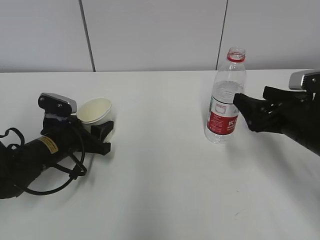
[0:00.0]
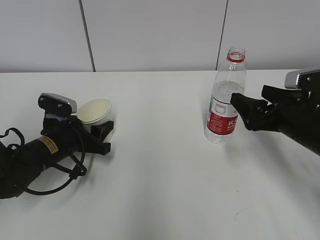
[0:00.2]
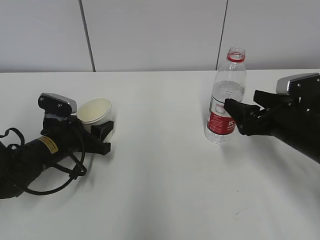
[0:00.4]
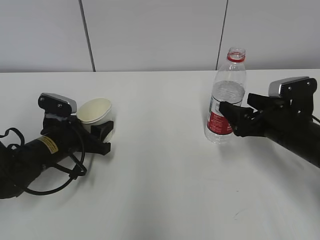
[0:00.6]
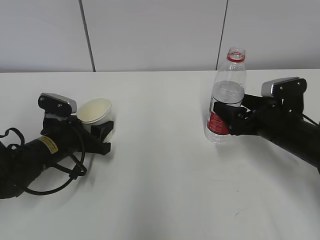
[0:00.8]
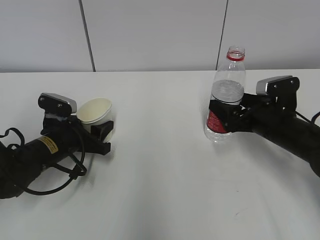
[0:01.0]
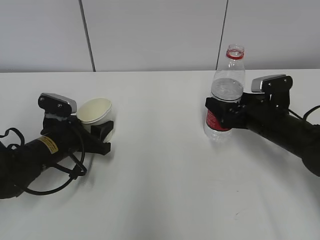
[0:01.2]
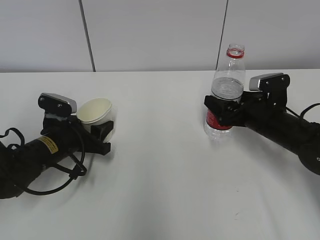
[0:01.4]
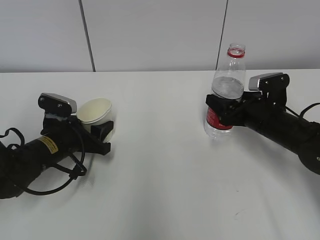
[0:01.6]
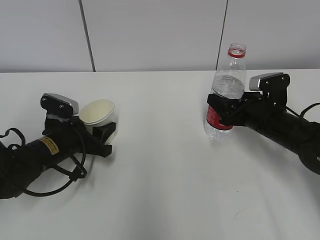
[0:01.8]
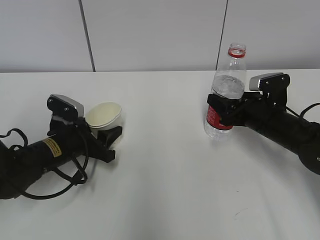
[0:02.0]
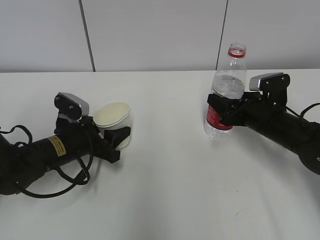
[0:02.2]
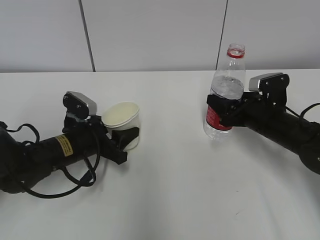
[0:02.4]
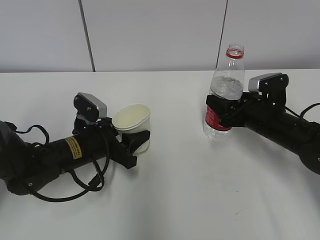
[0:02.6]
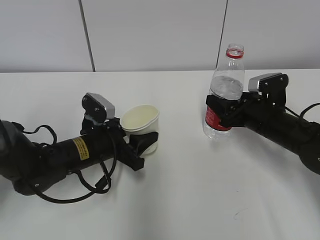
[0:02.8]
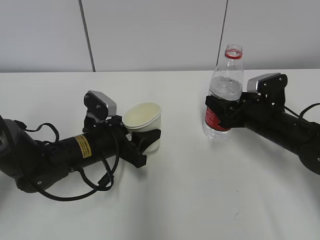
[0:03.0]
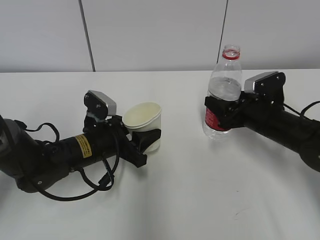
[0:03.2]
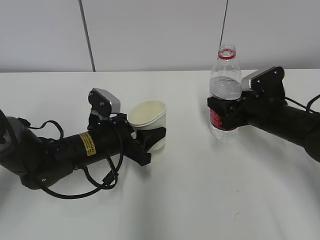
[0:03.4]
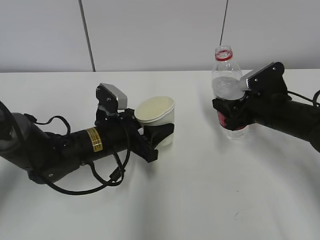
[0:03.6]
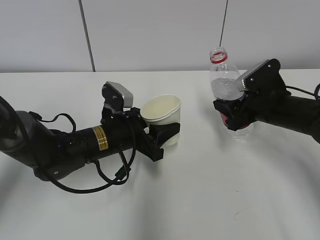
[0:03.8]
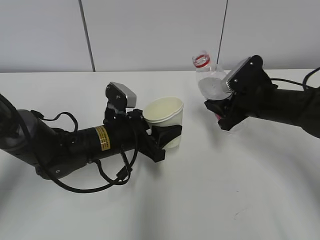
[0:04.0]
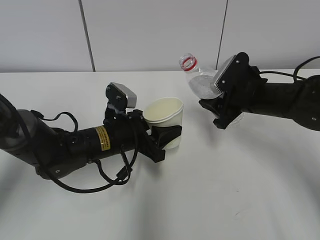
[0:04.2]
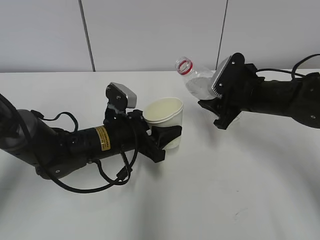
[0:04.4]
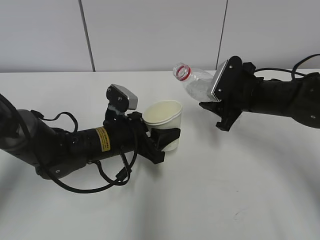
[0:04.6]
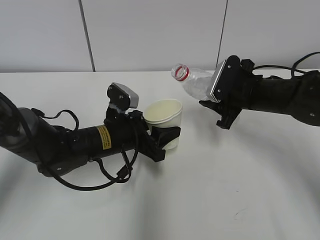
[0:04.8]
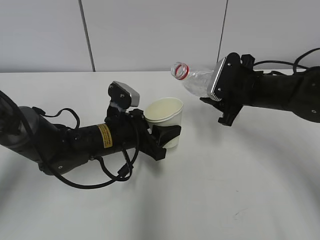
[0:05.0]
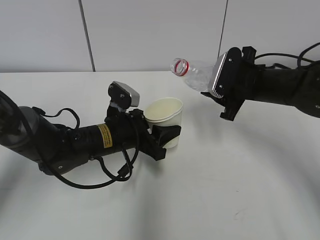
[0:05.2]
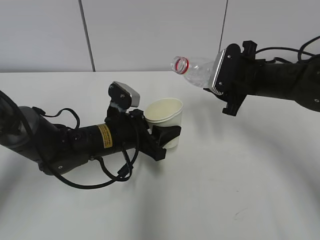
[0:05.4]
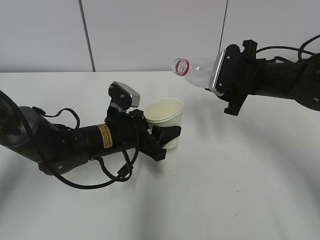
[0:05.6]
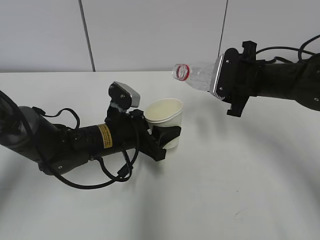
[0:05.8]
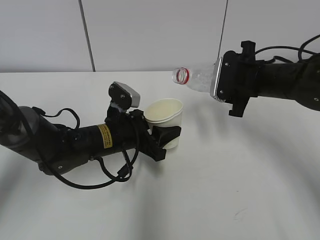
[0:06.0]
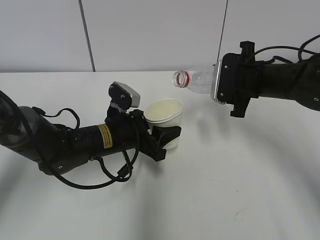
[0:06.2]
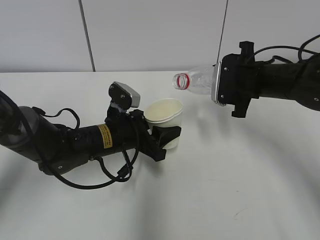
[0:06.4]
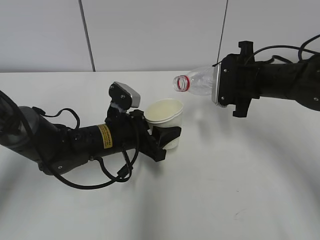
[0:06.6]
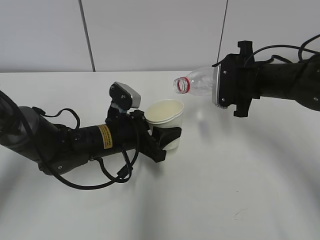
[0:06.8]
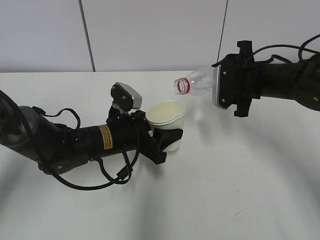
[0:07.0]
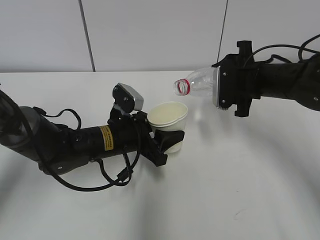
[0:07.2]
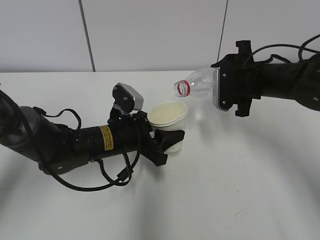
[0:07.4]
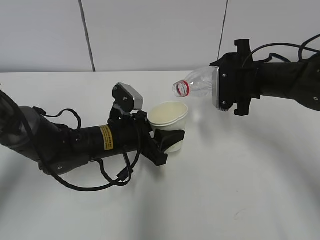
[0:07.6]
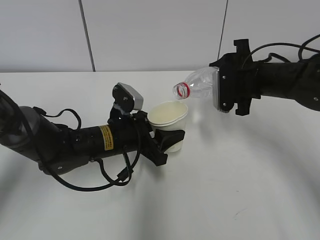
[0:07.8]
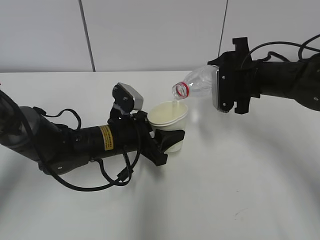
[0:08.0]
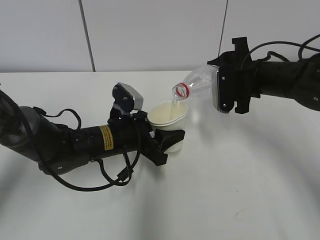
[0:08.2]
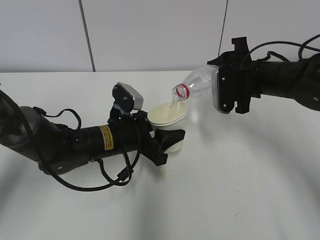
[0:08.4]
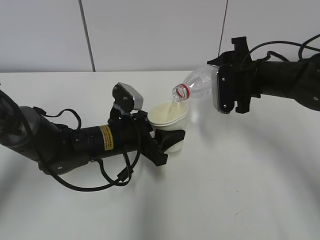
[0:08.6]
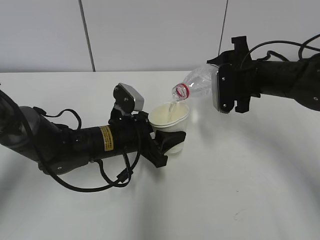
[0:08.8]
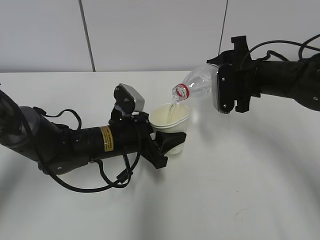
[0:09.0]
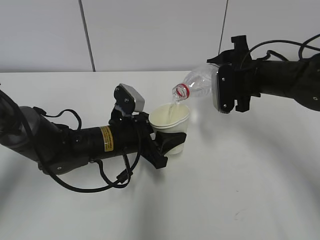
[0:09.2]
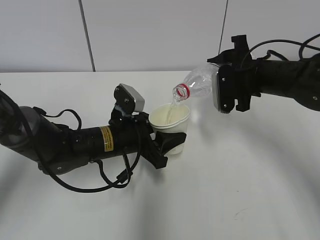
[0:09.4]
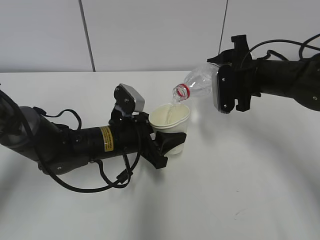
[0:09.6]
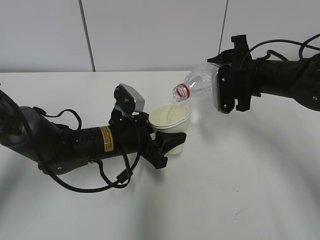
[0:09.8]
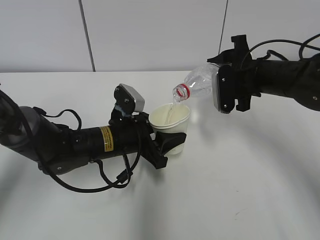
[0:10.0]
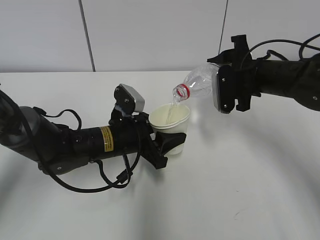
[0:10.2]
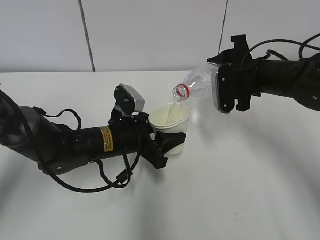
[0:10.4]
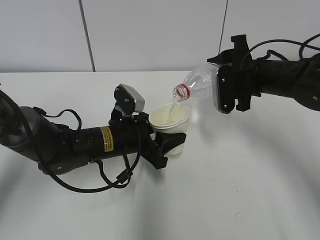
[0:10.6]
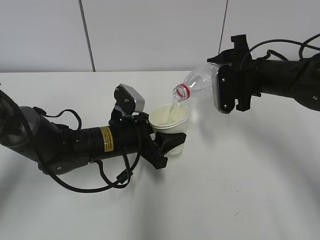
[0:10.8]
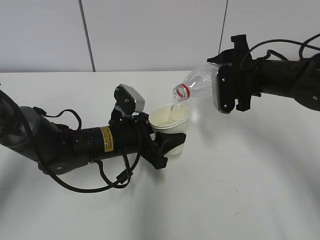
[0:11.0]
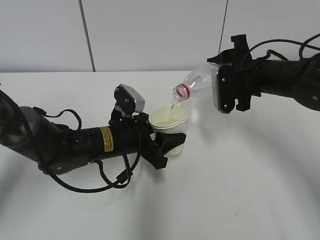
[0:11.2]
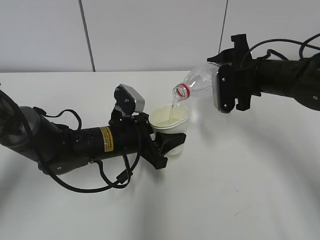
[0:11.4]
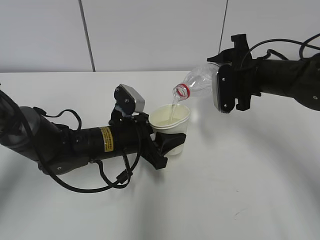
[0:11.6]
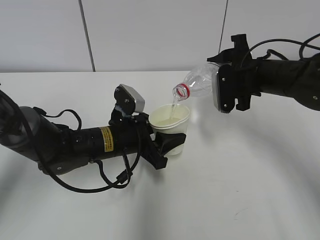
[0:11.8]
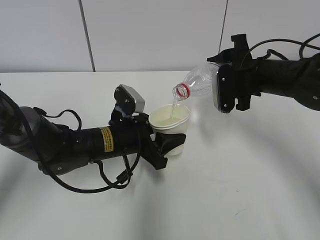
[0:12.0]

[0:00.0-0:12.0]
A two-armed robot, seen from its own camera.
Step, 0:00.2 to 0:01.0: Grab the water bottle with the right hand.
Step, 0:01.2 to 0:05.0: Lift the paper cup with the left hand.
Step, 0:05.2 to 0:09.0: Fill water with the left hand.
Step, 0:05.2 to 0:09.0: Pour water with the right hand.
0:00.0 to 0:01.6: The right gripper shifts some 10 cm forward and downward.
0:01.6 to 0:03.0: The left gripper moves to the right, approximately 5 cm, while the right gripper closes up.
0:03.0 to 0:04.4: The right gripper travels upward by some 5 cm.
0:06.0 to 0:07.6: The grippers move only a little.
0:07.6 to 0:09.0: The grippers stay close to where they were, moving slightly.
0:09.0 to 0:12.0: Neither gripper changes place.

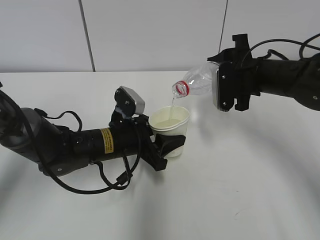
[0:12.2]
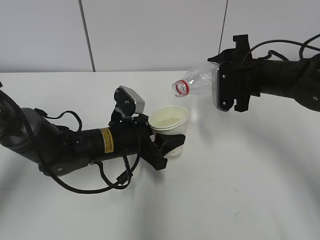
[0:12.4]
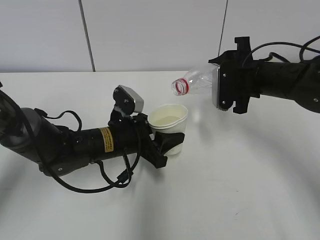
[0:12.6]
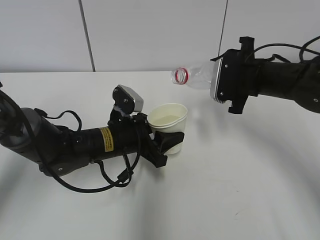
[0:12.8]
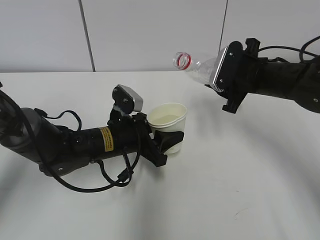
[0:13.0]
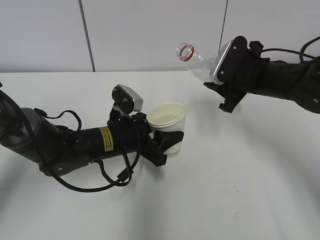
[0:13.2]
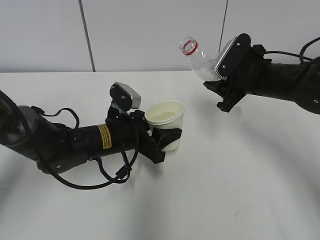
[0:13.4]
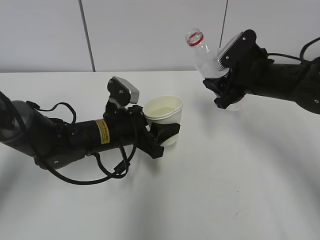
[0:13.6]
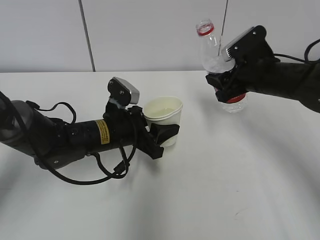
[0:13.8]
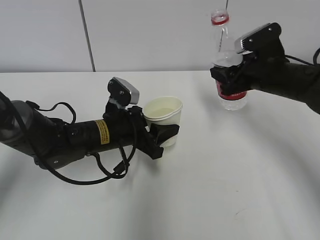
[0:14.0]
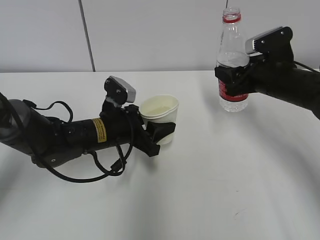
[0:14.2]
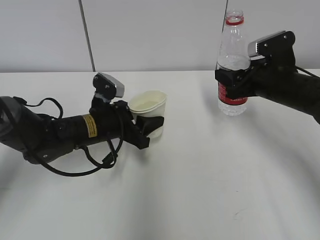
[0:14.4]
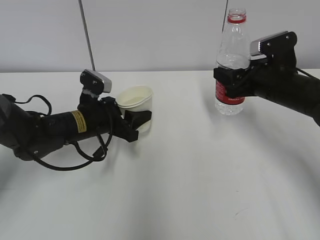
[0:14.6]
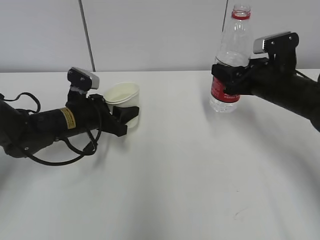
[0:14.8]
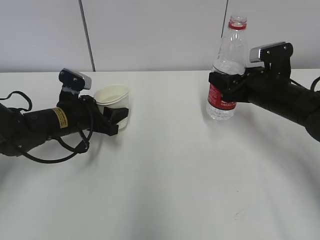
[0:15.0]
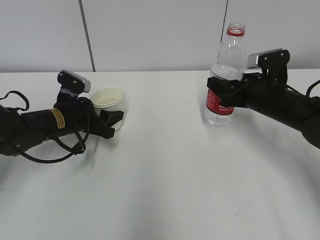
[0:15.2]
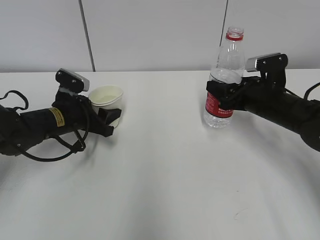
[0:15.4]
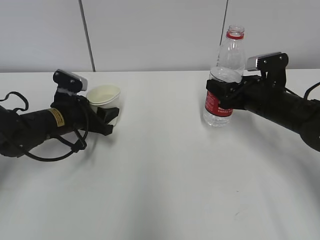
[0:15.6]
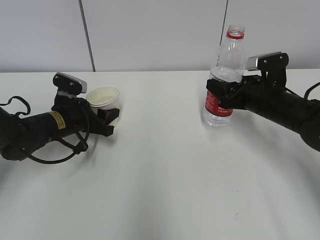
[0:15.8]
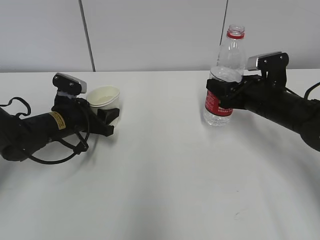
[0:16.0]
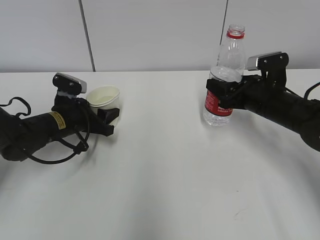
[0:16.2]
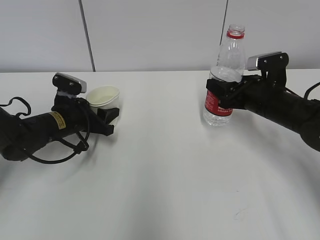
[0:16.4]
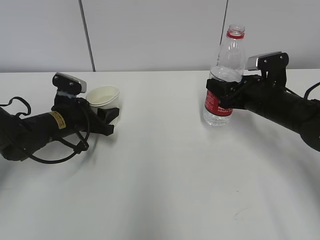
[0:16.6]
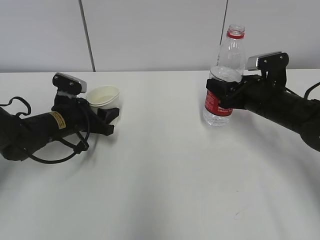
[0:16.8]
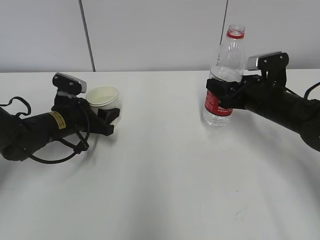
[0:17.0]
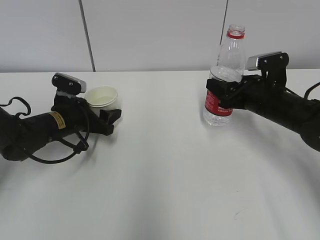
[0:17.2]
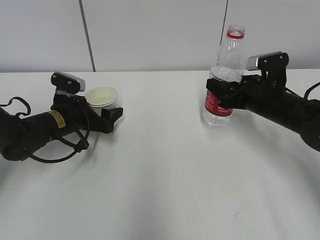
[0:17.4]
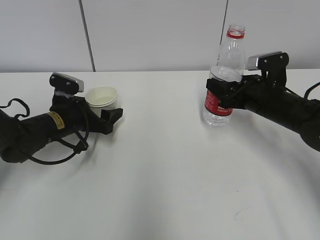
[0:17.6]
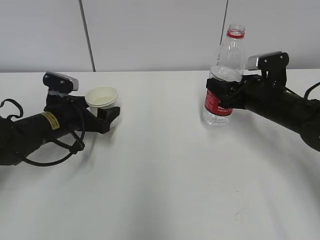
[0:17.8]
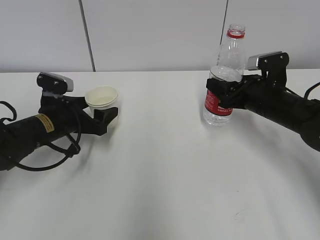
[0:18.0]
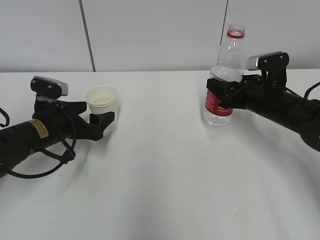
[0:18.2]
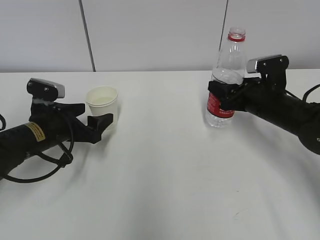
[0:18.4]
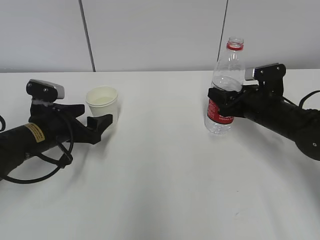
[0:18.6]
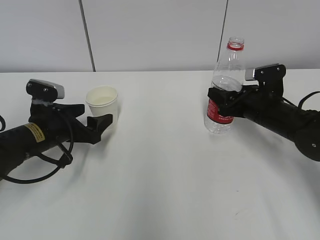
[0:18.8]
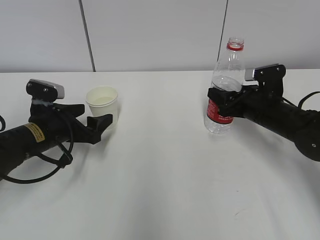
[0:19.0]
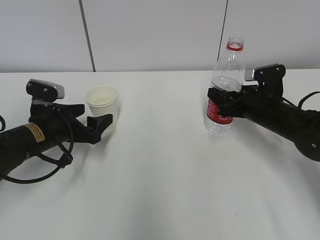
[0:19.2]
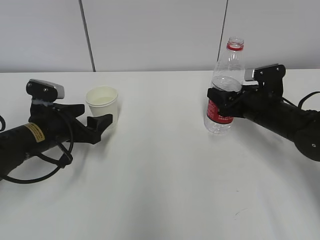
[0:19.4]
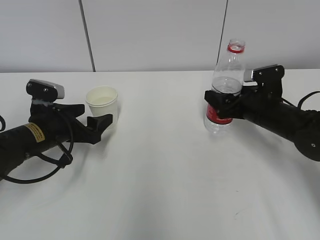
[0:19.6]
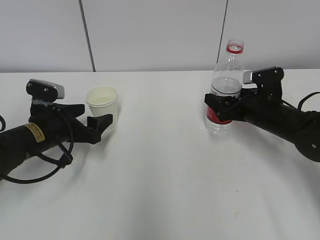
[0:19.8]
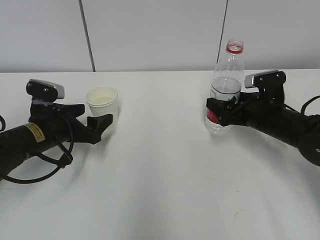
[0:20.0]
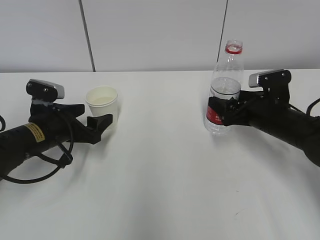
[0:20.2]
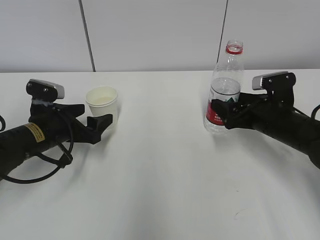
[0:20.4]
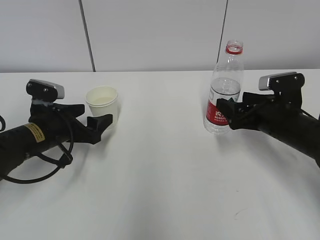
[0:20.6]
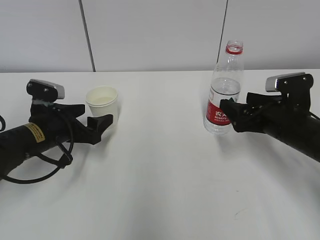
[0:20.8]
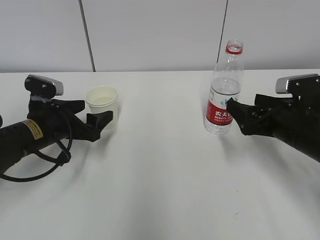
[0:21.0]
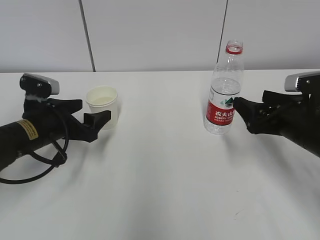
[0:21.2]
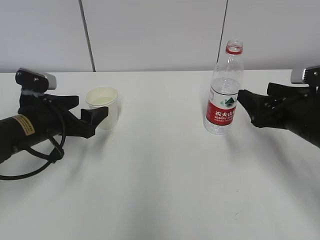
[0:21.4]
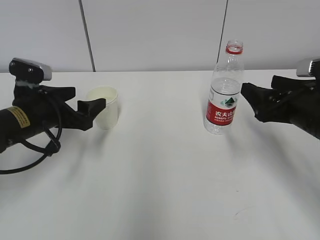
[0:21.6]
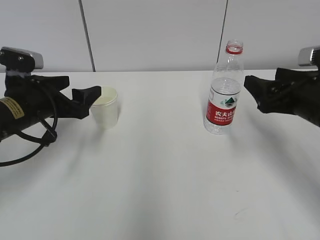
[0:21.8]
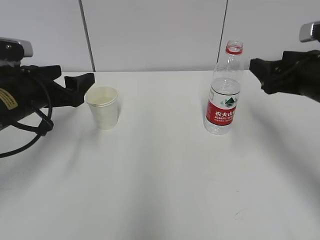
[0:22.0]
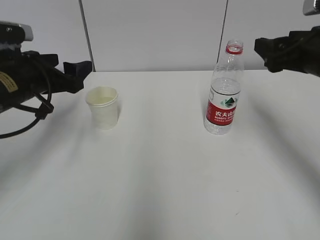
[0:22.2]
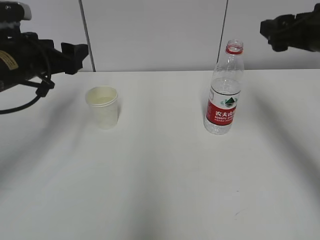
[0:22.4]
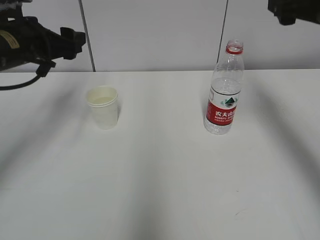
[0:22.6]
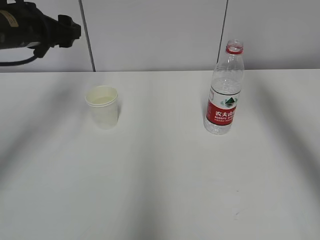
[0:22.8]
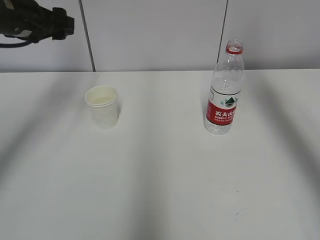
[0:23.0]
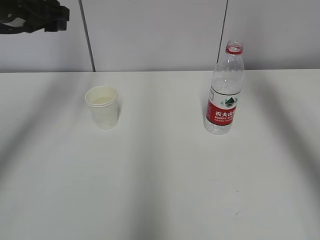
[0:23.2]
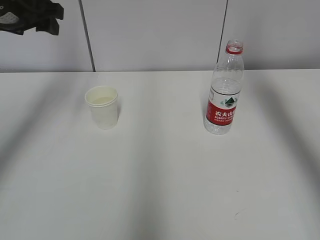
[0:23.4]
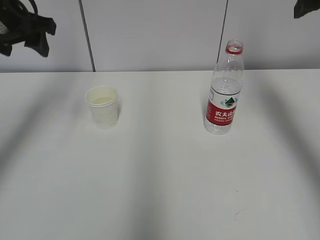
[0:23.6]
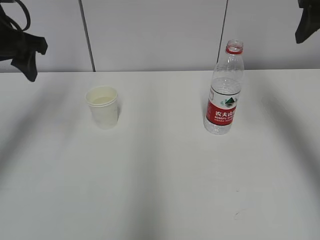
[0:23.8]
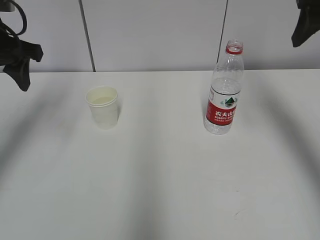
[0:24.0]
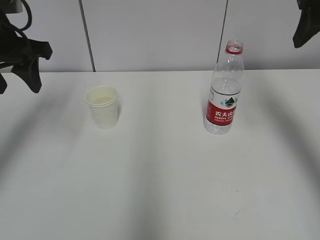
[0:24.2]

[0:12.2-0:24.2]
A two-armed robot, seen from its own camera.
Step, 0:13.0 to 0:15.0: Place the water bottle with the right hand.
0:13.8 to 0:15.2: The left gripper goes some 10 cm to the left.
0:15.2 to 0:16.6: The grippers move only a little.
0:16.6 to 0:18.2: The left gripper opens its fingers.
0:18.2 to 0:19.8: The right gripper opens up.
0:19.8 to 0:21.2: The right gripper goes roughly 10 cm backward.
0:21.2 to 0:22.6: The grippers both shift upward by about 15 cm.
0:22.6 to 0:24.2: The grippers both shift upward by about 5 cm. The left gripper closes up.
